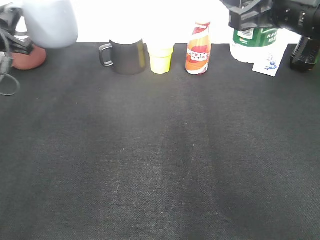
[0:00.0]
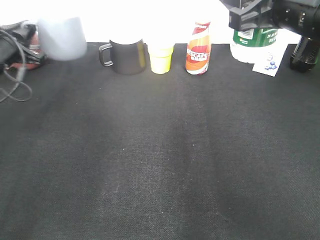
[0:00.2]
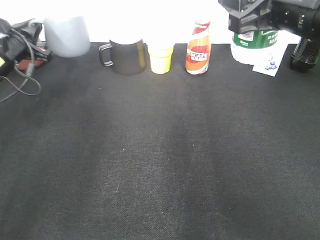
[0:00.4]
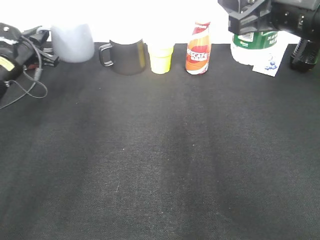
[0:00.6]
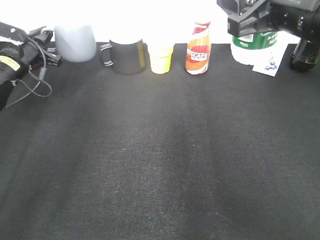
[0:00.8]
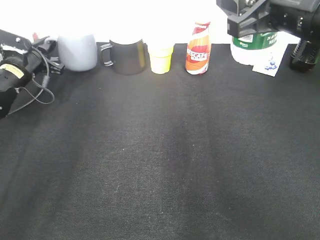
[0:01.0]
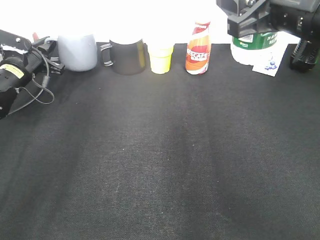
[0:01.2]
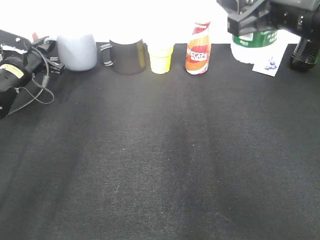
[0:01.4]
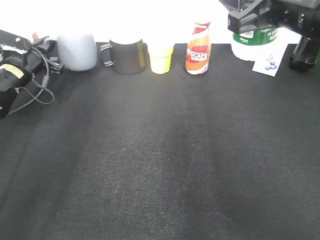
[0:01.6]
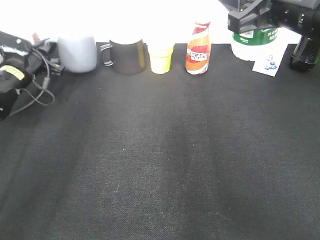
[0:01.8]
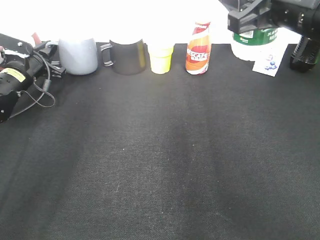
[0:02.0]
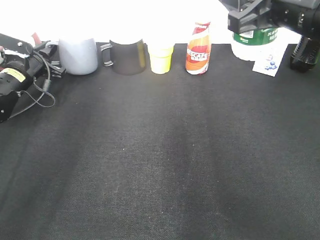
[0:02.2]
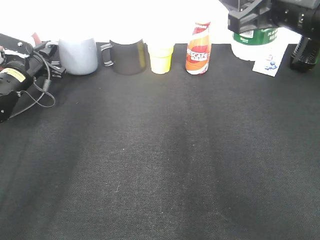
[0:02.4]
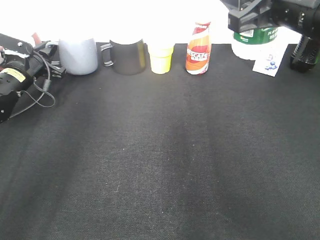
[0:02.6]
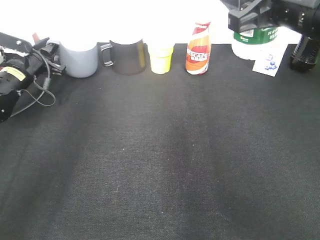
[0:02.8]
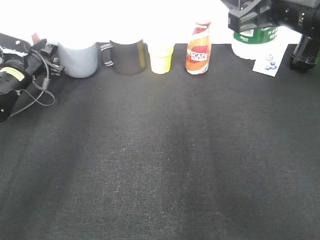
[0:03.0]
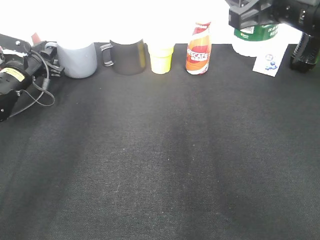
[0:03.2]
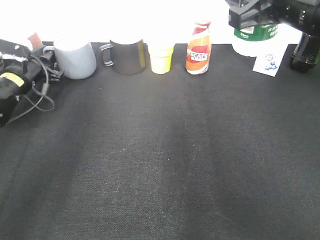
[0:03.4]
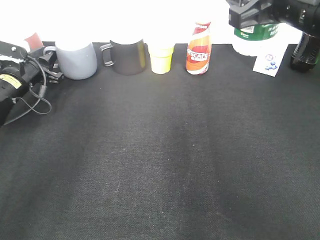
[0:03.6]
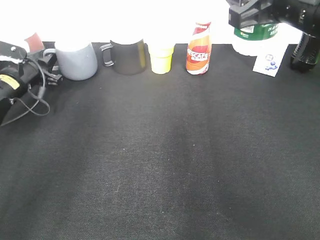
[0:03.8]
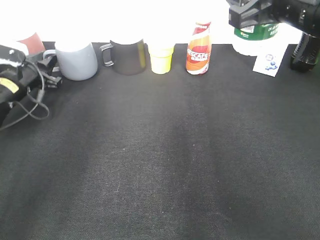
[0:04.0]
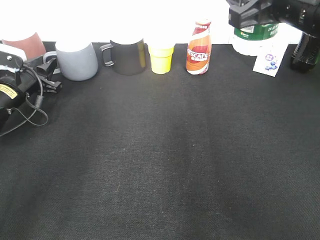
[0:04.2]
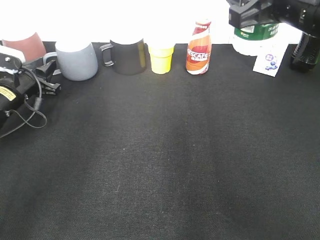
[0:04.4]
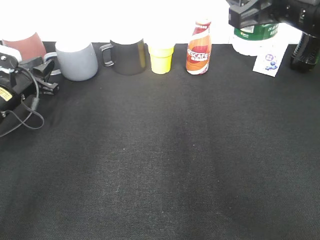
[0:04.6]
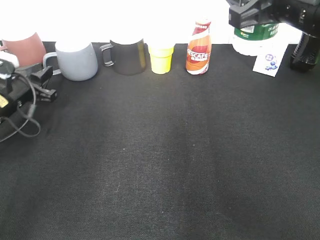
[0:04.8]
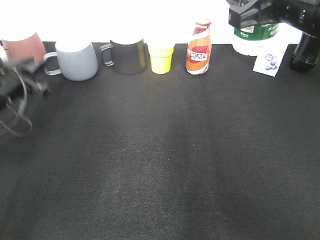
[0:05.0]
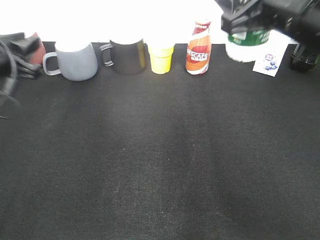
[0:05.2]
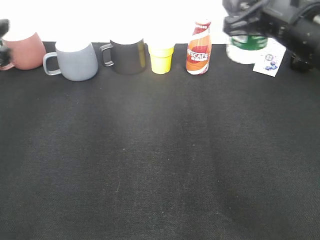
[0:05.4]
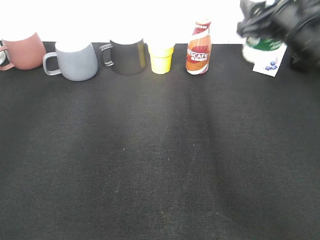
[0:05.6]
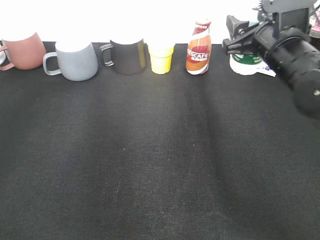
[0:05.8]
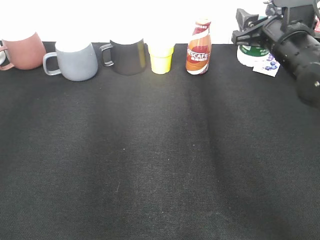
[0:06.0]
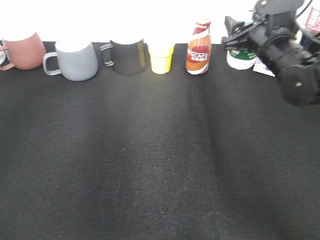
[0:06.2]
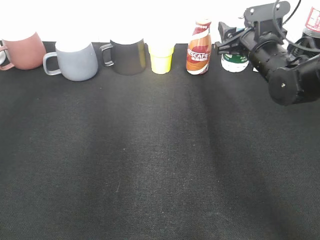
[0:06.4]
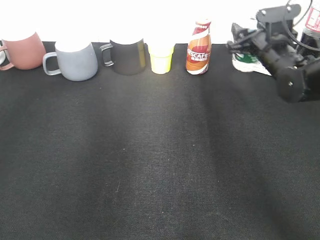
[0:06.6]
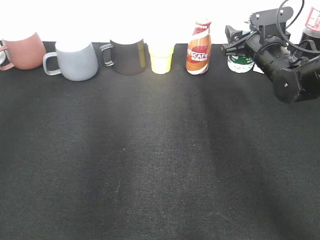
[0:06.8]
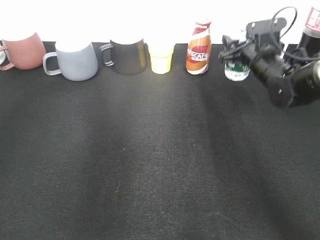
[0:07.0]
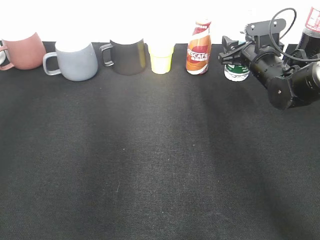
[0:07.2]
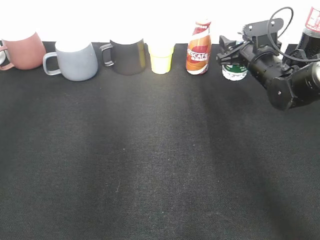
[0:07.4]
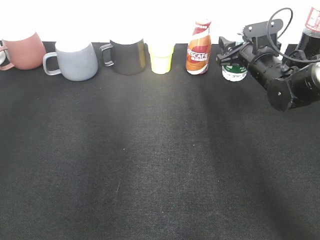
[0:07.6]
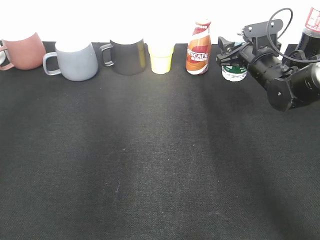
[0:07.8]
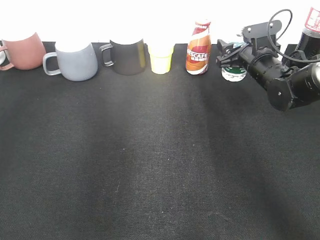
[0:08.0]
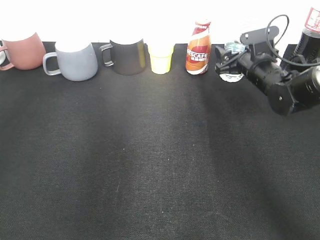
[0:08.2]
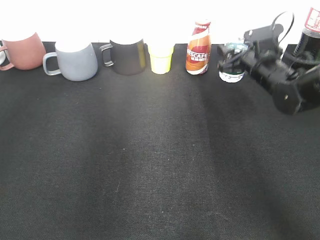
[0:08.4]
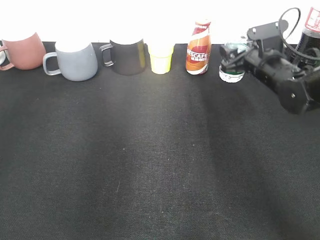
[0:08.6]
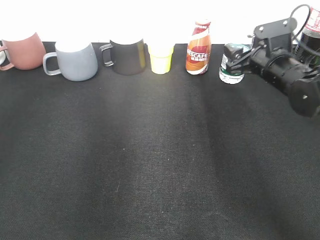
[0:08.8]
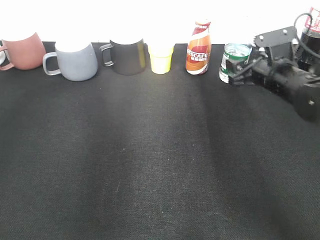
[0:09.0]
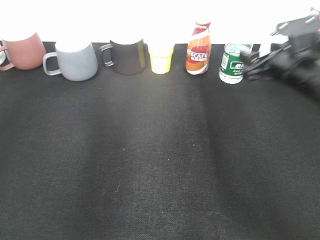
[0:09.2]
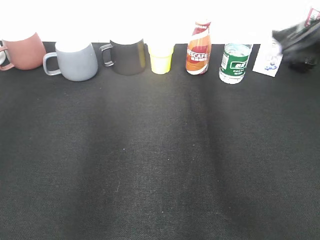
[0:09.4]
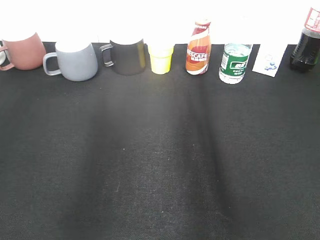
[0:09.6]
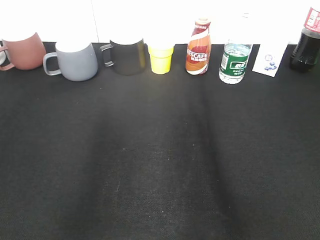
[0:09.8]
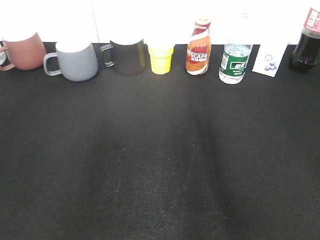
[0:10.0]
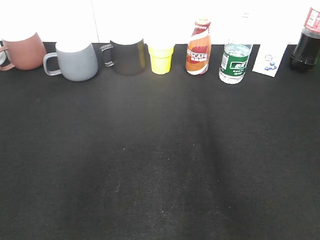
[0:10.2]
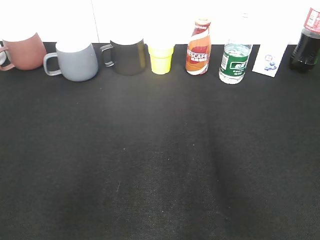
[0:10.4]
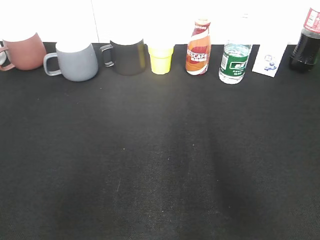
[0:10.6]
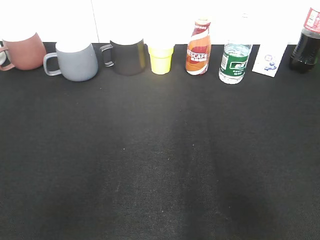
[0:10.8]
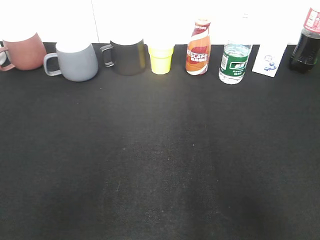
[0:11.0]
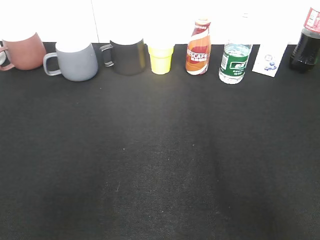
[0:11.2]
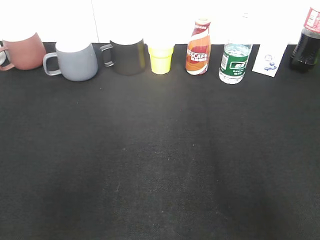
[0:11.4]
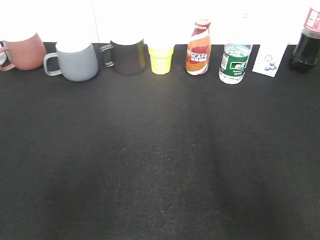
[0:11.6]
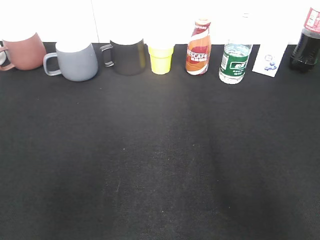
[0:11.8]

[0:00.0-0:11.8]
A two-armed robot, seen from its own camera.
Step, 0:00.0 to 0:04.8: Place the grey cup on the table with left gripper.
Step, 0:05.0 to 0:08.2: Place the water bottle on the table with right gripper.
0:00.0 to 0:01.4: The left gripper travels downward and forward by about 15 cm.
0:01.4 to 0:03.0: The left gripper opens.
0:03.0 to 0:04.4: The left gripper is displaced backward by roughly 5 cm.
0:04.4 to 0:06.0: The right gripper goes some 15 cm forward and downward. Meanwhile the left gripper is displaced upward and backward by some 30 cm.
0:06.0 to 0:07.4: The right gripper travels downward and forward by roughly 10 cm.
0:07.4 to 0:08.8: The right gripper ends up some 5 cm from where it was, and opens its fingers.
0:08.8 to 0:10.4: The right gripper is displaced backward and upward by approximately 40 cm. Meanwhile the left gripper shifts some 20 cm backward.

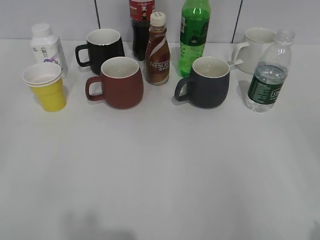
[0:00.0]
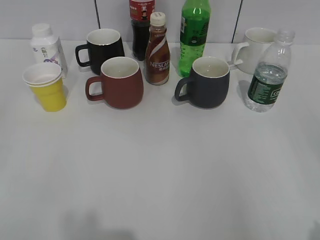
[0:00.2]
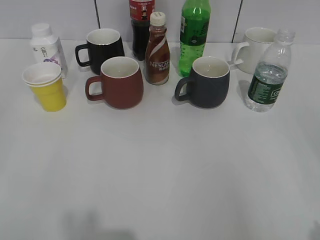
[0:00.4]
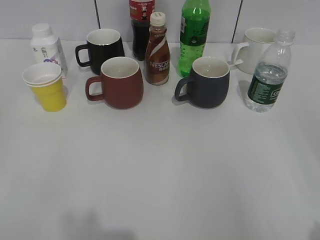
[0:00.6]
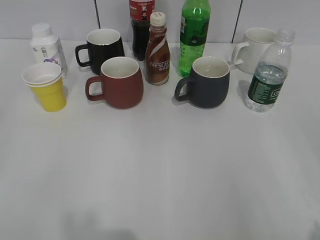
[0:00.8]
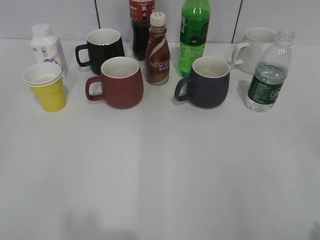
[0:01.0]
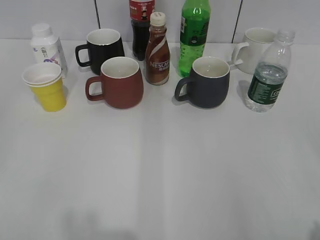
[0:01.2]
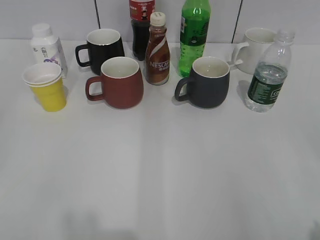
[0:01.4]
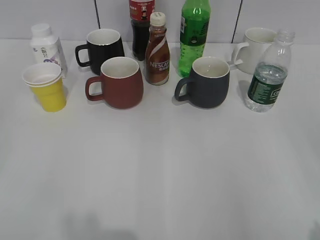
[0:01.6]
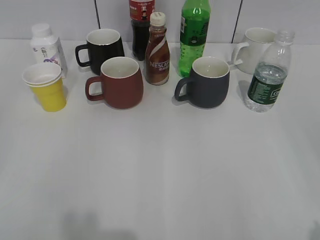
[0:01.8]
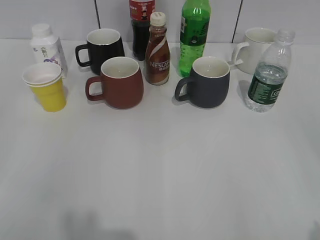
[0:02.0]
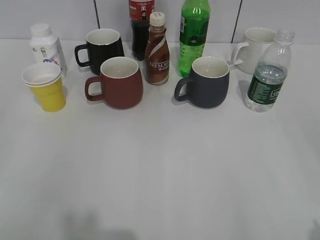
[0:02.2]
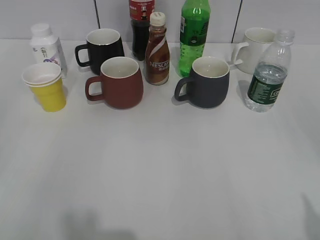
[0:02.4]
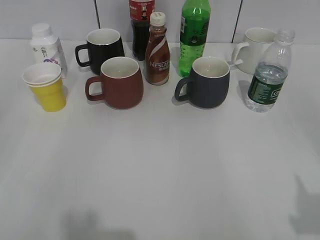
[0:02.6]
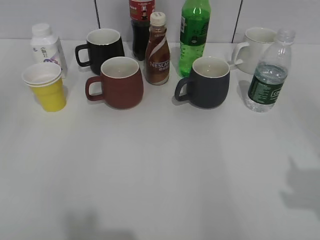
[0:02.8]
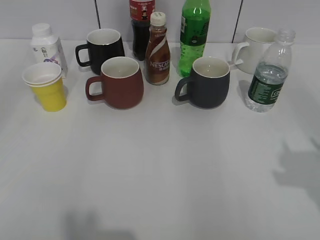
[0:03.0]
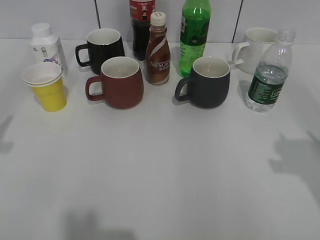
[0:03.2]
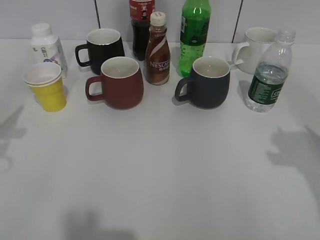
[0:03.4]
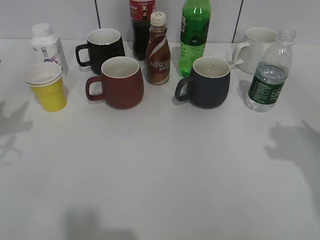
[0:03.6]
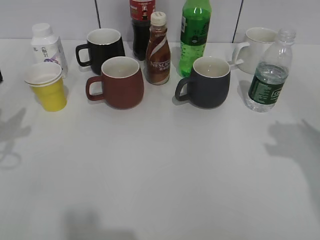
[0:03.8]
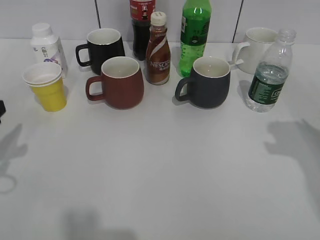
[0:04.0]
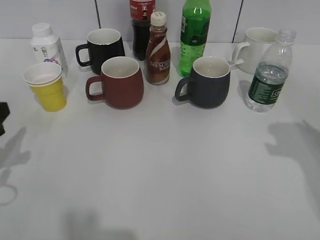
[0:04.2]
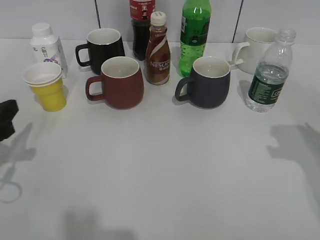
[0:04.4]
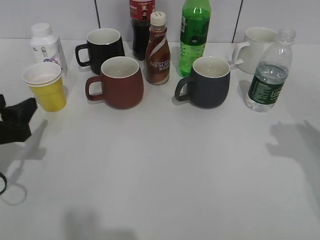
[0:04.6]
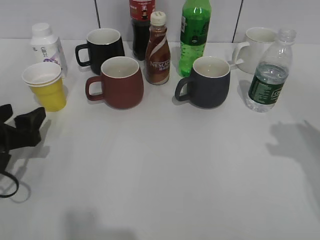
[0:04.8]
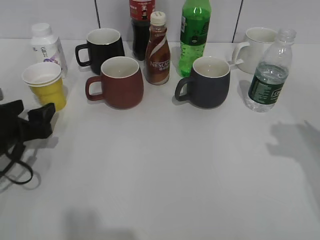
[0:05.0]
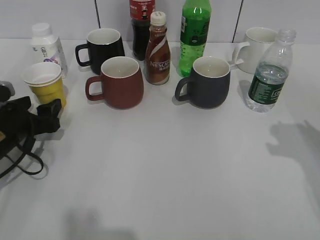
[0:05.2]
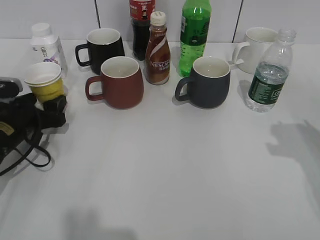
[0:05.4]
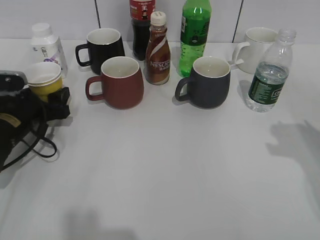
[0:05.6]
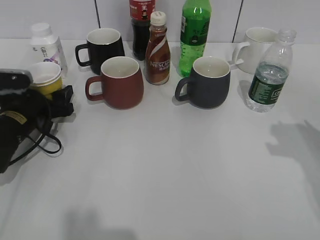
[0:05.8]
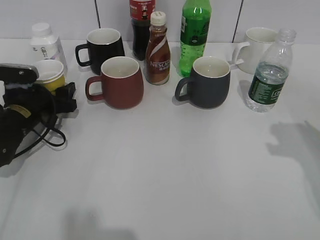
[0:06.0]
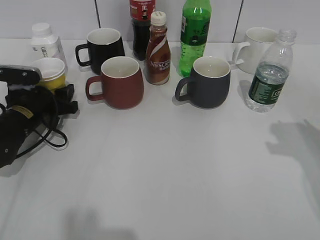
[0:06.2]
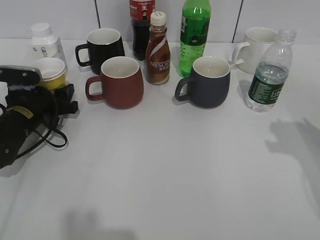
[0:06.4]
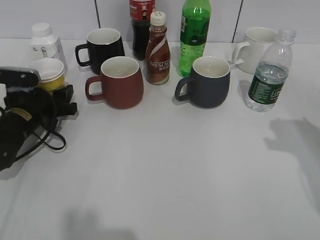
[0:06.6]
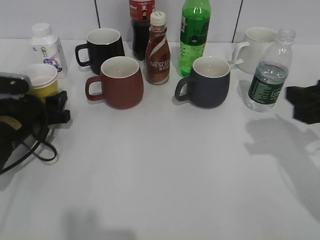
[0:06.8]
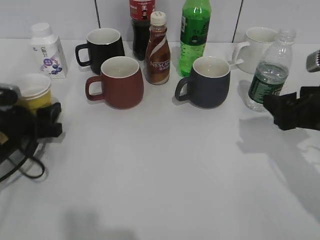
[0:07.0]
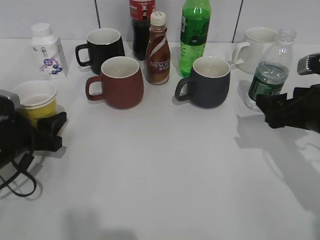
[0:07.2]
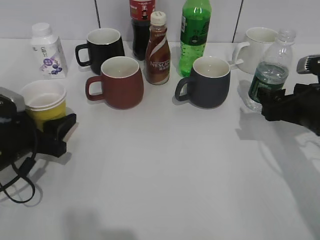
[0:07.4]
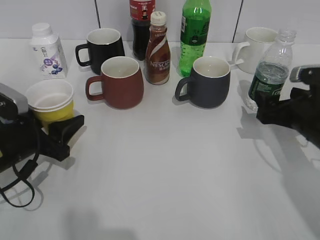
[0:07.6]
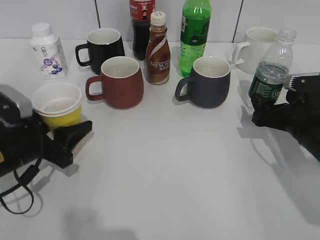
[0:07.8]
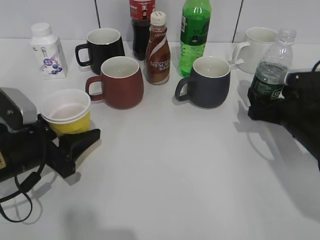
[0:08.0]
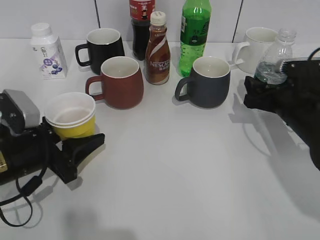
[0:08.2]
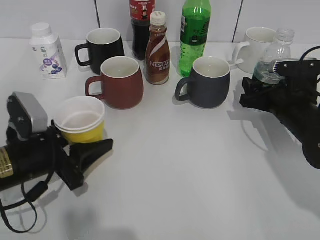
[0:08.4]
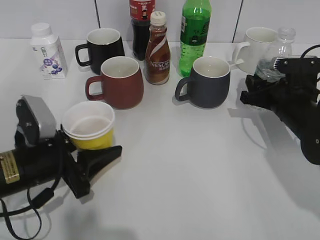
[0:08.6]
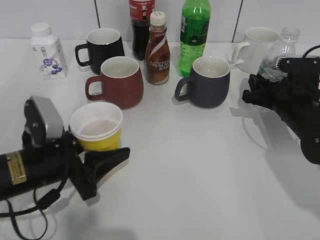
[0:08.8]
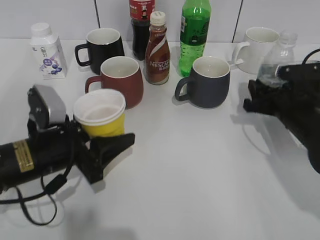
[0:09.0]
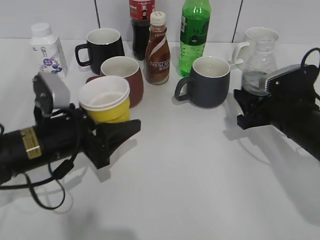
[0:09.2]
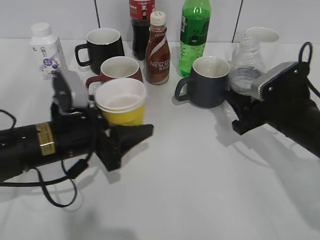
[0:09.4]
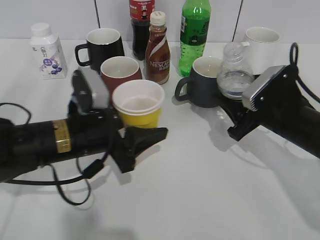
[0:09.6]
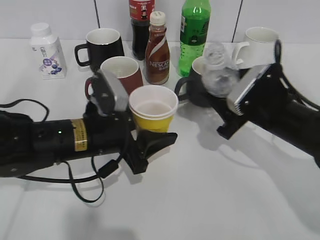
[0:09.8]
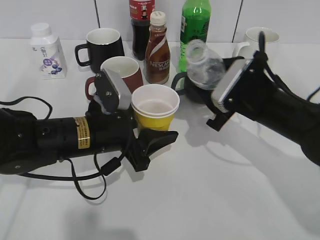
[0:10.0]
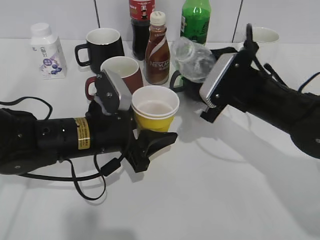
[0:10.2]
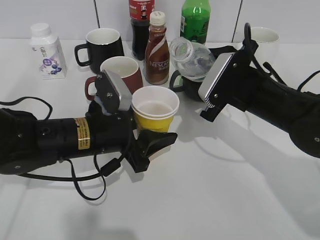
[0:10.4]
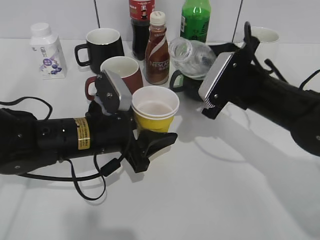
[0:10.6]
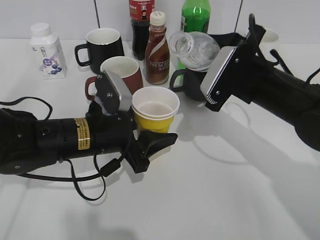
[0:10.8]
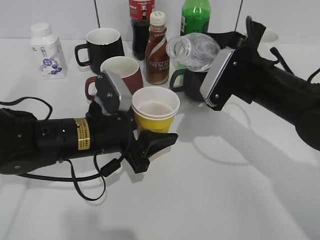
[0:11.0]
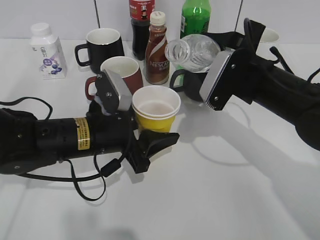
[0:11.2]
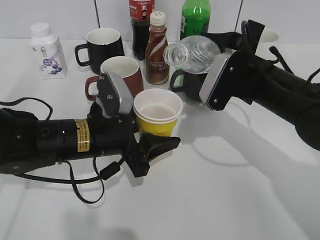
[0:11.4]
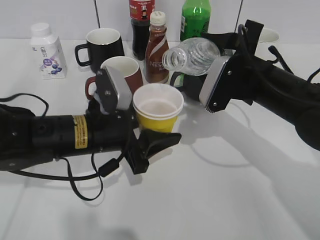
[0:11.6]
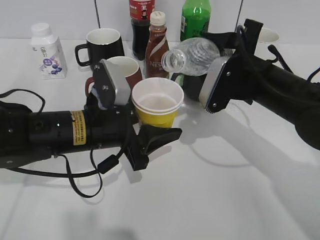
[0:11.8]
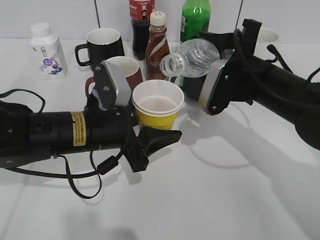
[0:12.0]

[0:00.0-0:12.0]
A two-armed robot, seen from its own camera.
Step, 0:02.2 to 0:06.2: Grasp the yellow paper cup with left gripper.
Step, 0:06.6 to 0:08.6: Grasp the bottle with water with right gripper.
0:01.6 to 0:03.0: Both grippers move forward, approximately 10 cm. The right gripper closes up; the left gripper closes its fingers.
0:03.0 to 0:04.4: The left gripper shifts some 15 cm downward and forward; the right gripper goes some 10 cm forward and downward.
0:04.4 to 0:06.0: The left gripper is displaced forward and downward by roughly 15 cm, and opens.
0:06.0 to 0:07.6: The left gripper travels backward by about 10 cm, and closes. Meanwhile the right gripper heads downward and forward, covering some 10 cm, and opens its fingers.
0:07.6 to 0:09.0: The right gripper moves about 5 cm, and closes, while the left gripper goes approximately 5 cm to the right.
0:09.0 to 0:10.4: The left gripper shifts roughly 5 cm to the right; the right gripper travels to the left and upward by some 10 cm.
